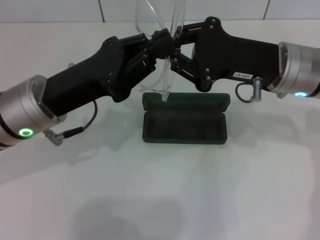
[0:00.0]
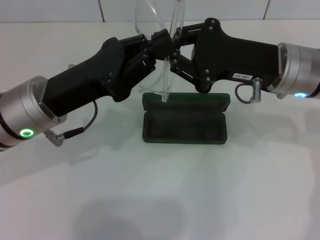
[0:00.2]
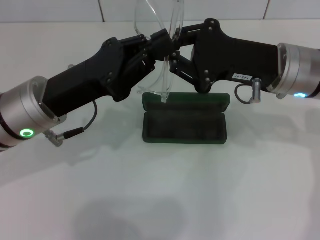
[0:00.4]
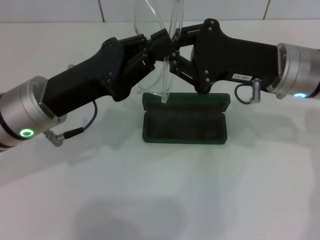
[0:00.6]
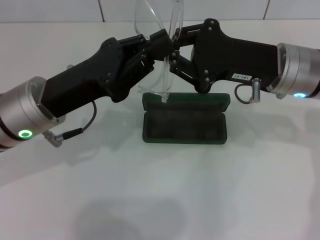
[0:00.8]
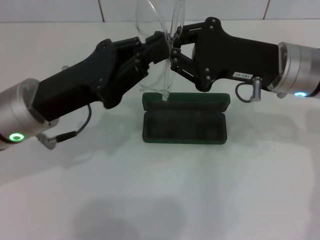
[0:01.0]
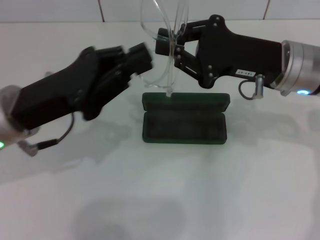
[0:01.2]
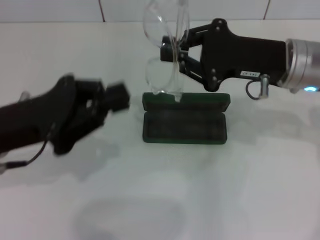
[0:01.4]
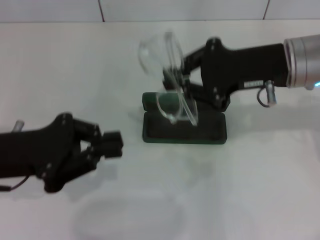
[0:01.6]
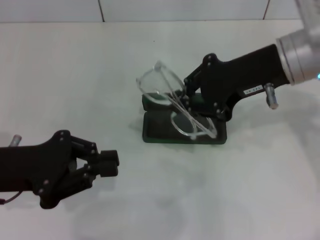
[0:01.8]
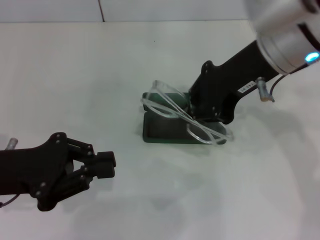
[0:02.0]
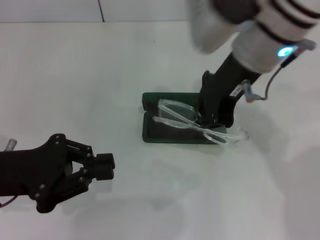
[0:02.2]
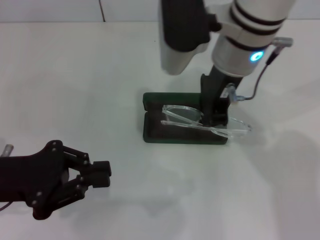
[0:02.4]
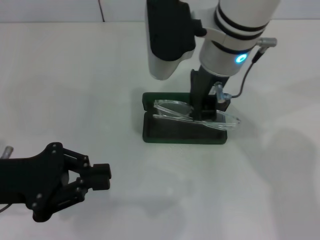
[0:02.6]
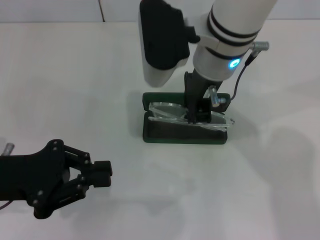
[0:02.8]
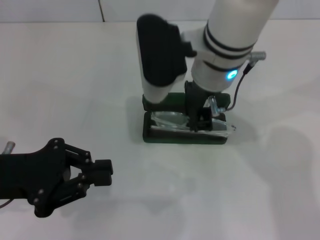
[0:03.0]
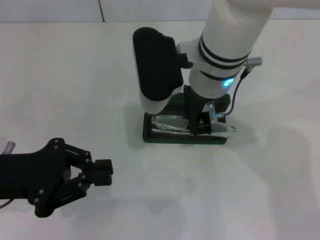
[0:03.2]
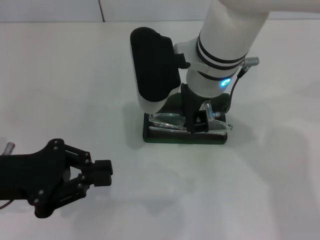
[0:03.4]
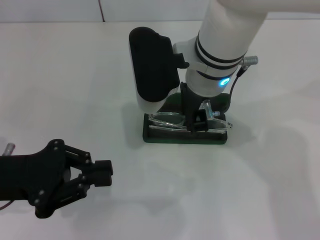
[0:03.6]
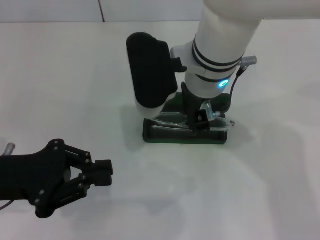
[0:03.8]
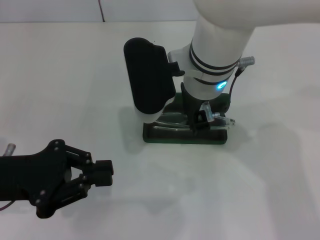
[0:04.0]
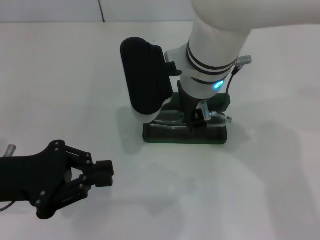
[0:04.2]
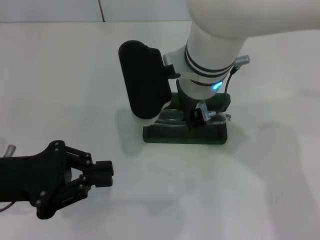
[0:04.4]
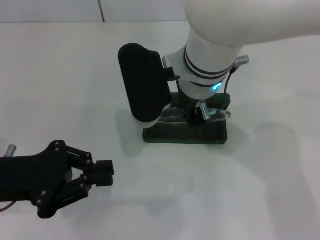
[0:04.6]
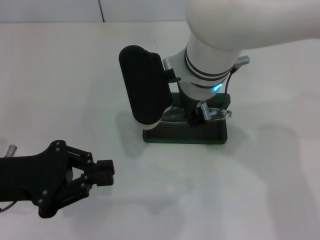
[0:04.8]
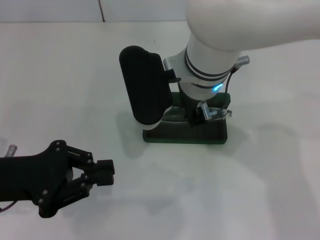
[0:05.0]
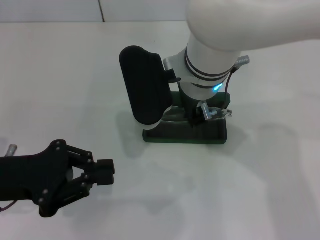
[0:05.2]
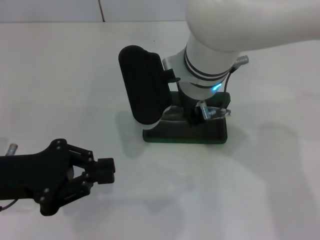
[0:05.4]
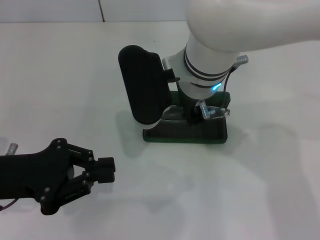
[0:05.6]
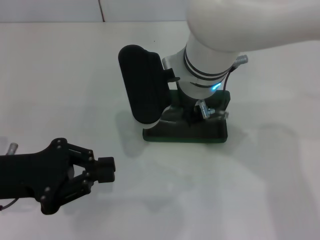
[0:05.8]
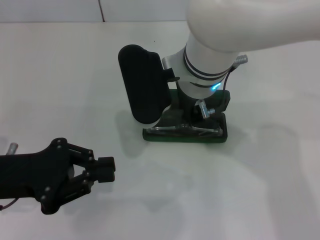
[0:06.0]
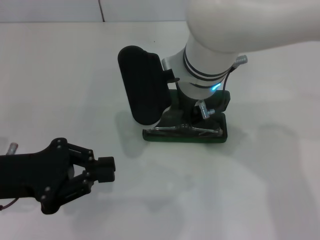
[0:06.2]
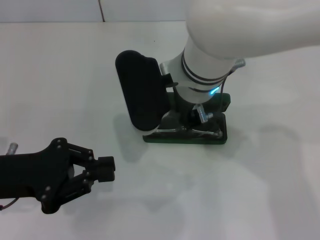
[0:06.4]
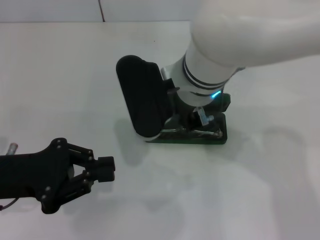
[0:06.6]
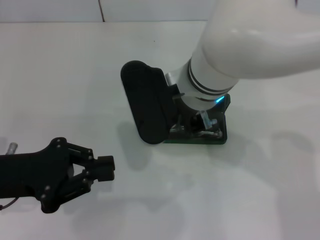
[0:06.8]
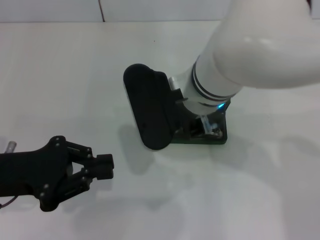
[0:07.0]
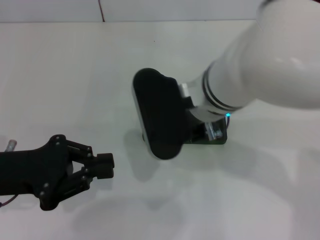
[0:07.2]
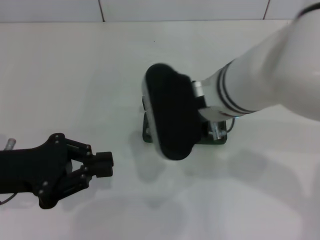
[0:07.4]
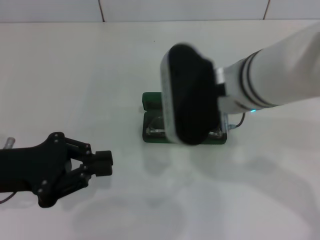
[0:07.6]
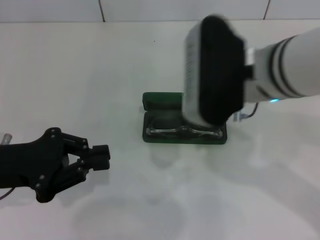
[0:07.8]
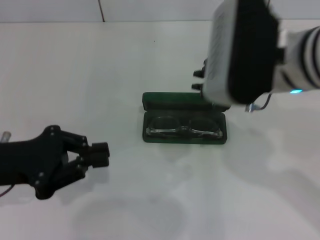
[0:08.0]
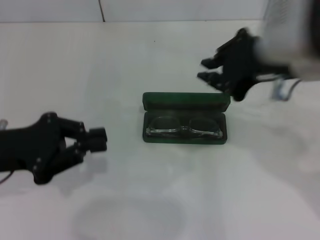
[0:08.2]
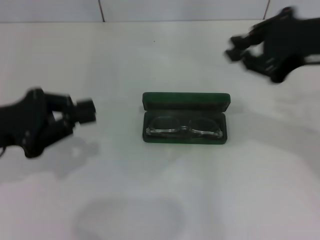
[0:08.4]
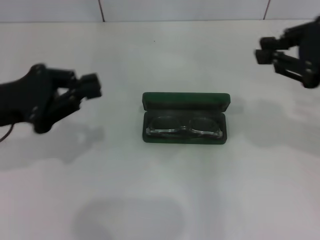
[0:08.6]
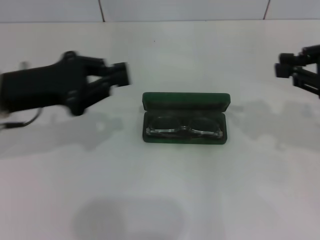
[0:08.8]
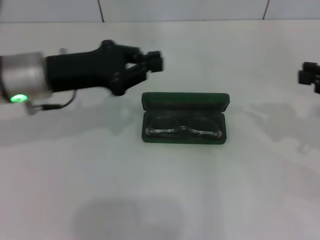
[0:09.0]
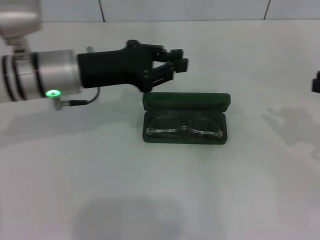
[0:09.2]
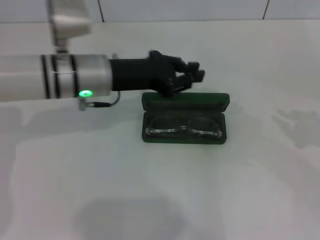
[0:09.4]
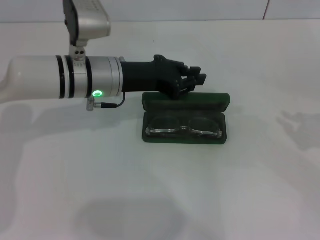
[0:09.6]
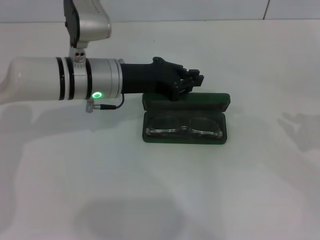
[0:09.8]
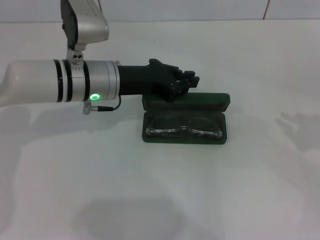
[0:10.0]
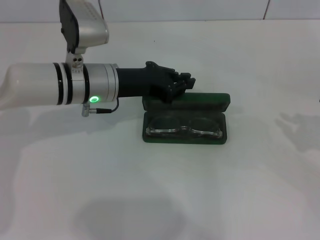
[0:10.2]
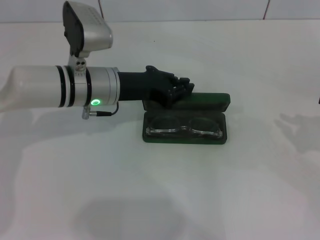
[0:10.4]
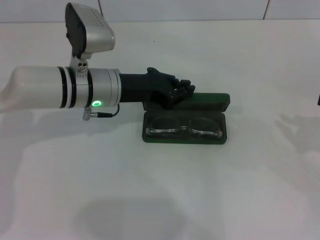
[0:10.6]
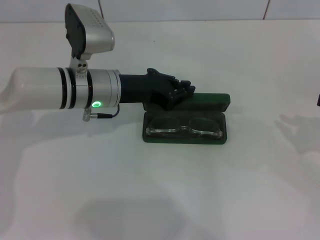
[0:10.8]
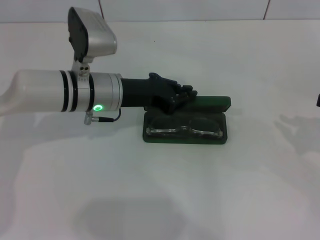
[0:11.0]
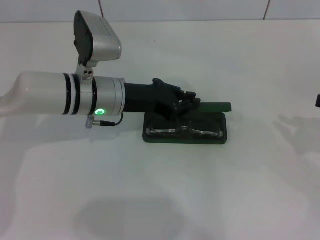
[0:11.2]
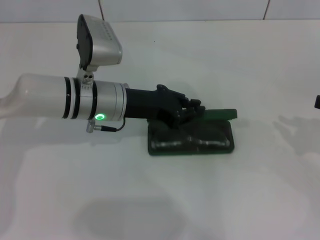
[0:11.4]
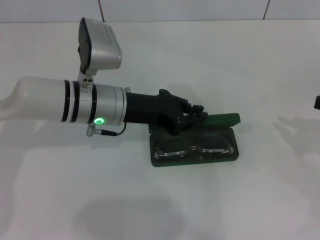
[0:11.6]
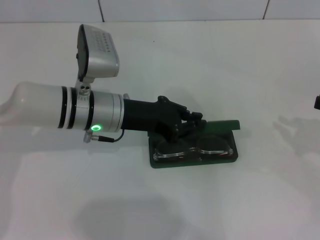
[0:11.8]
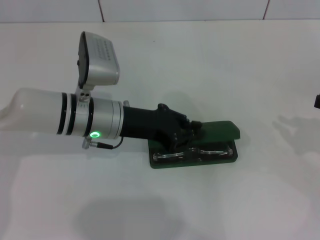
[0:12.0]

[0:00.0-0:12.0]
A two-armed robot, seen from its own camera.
Step, 0:00.0 to 0:05.8: Put the glasses into the case with your right hand.
0:00.0 to 0:01.6: The left gripper travels to the left by approximately 5 cm.
0:01.6 to 0:03.0: The right gripper moves to the left, approximately 15 cm.
0:03.0 to 0:04.4: The grippers move only a little.
0:04.4 to 0:06.0: The two grippers keep their place.
0:06.0 to 0:07.6: The right gripper moves to the right and backward, approximately 10 cm.
0:07.6 to 0:09.0: The right gripper shifts some 25 cm to the right, while the left gripper is displaced forward and to the right by roughly 15 cm.
0:09.0 to 0:10.4: The left gripper heads to the right and downward, covering some 10 cm; the right gripper is displaced downward by roughly 5 cm.
0:10.4 to 0:12.0: The grippers stay close to where they were, moving slightly.

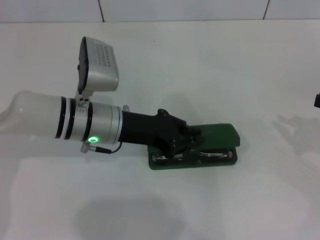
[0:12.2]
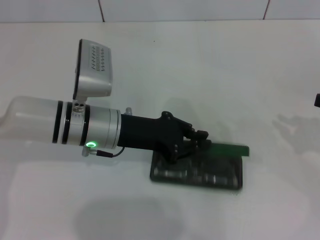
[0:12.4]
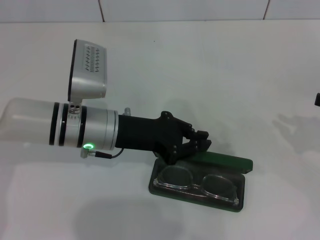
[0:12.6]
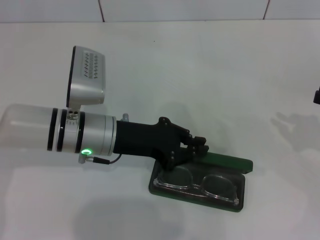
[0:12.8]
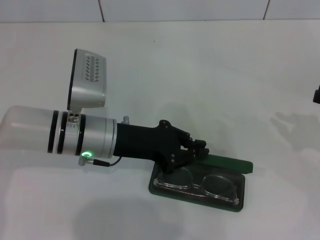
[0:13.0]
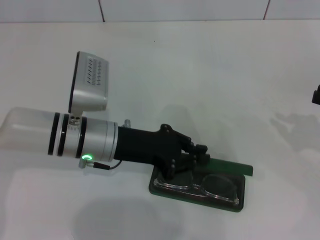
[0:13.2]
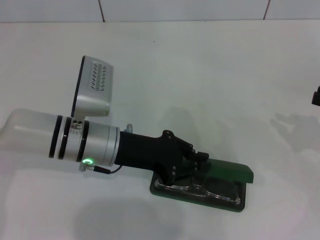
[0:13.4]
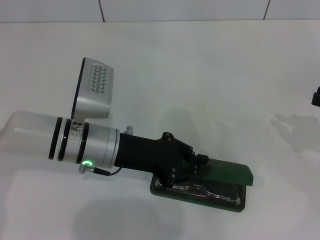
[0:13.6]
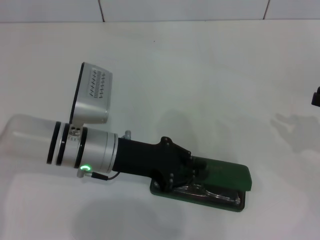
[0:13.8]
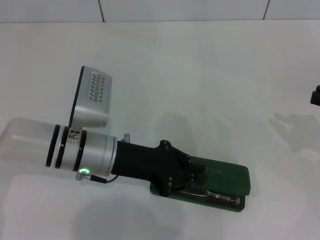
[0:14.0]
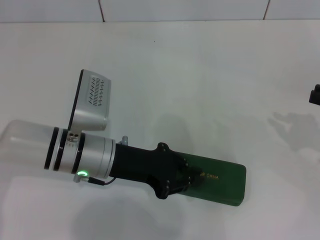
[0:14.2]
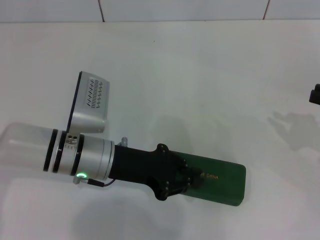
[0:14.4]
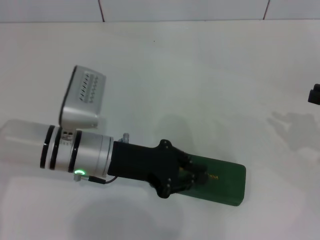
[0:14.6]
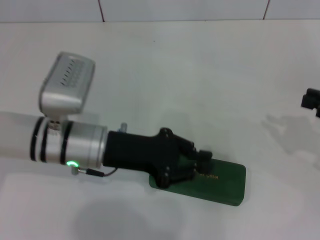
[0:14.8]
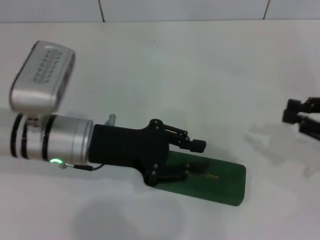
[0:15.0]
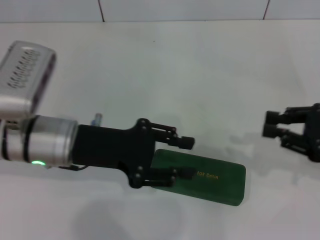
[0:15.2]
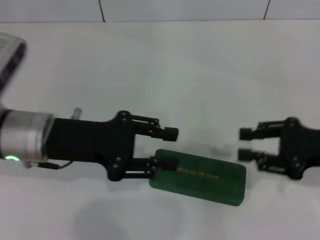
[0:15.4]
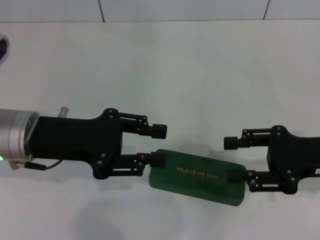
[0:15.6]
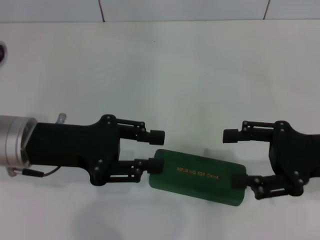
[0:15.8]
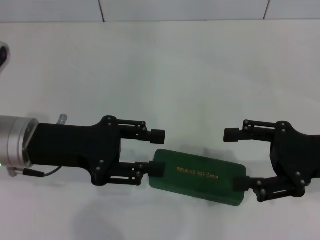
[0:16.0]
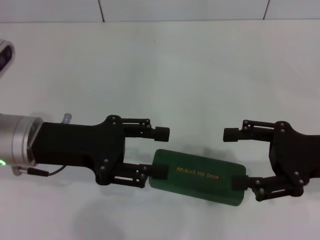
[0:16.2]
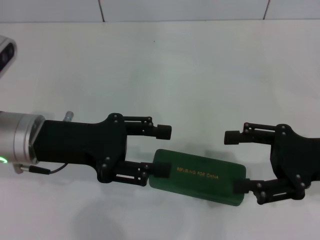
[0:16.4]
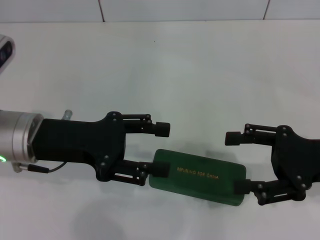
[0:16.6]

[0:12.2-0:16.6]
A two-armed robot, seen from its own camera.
Step, 0:12.2 to 0:14.2: Close the glasses case with your left hand.
0:12.2 to 0:13.6: The grippers move only a little.
0:13.6 to 0:15.2: The left gripper moves roughly 5 cm, and opens up. Meanwhile the right gripper heads to the left, covering about 5 cm.
0:15.2 to 0:16.6: The right gripper changes place by about 5 cm, and opens up. Meanwhile the left gripper opens its fingers.

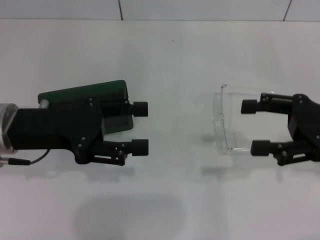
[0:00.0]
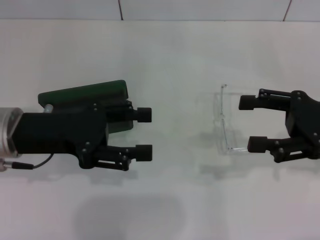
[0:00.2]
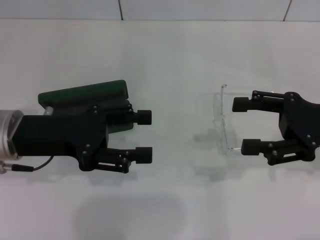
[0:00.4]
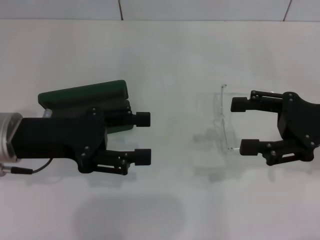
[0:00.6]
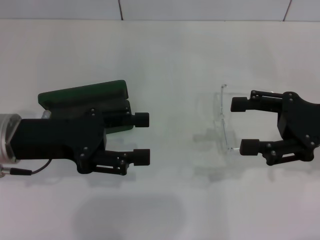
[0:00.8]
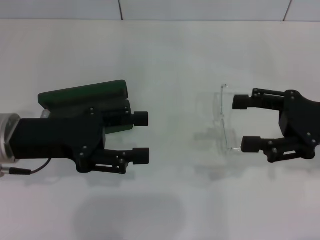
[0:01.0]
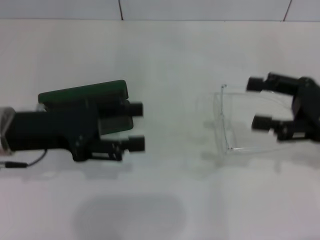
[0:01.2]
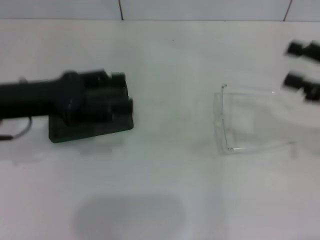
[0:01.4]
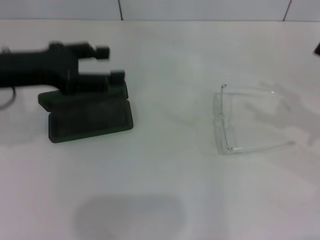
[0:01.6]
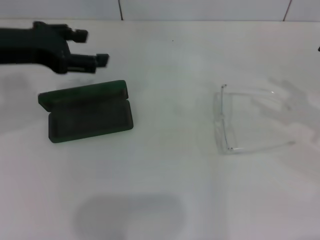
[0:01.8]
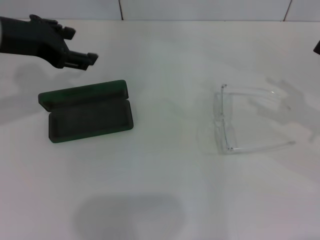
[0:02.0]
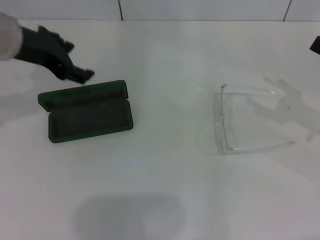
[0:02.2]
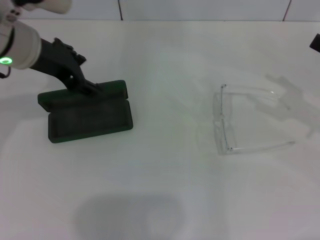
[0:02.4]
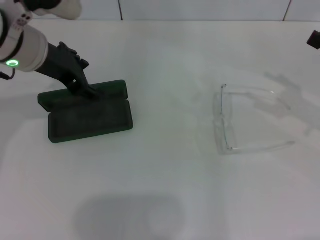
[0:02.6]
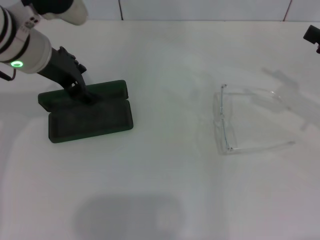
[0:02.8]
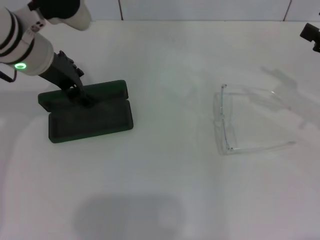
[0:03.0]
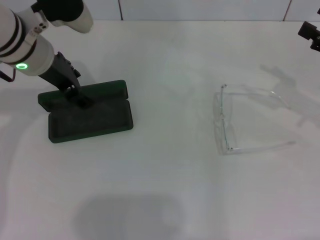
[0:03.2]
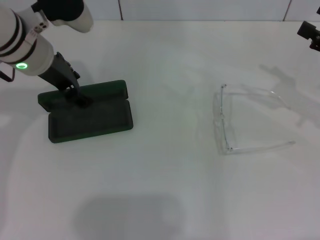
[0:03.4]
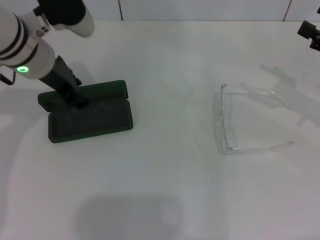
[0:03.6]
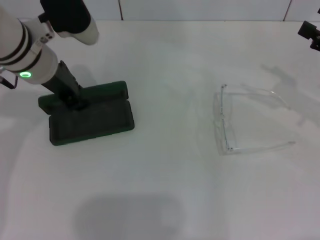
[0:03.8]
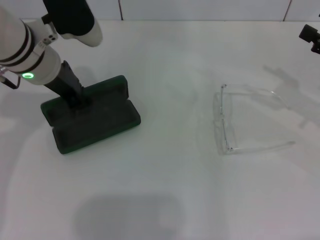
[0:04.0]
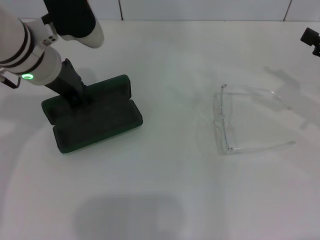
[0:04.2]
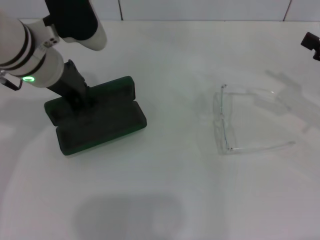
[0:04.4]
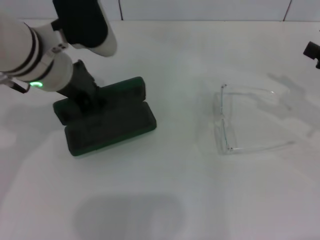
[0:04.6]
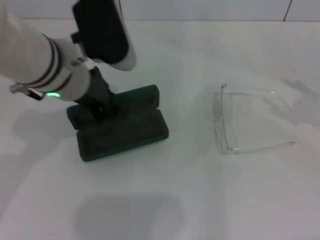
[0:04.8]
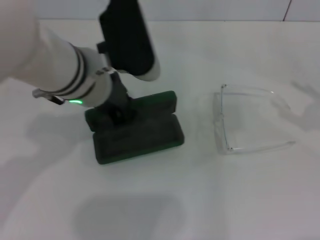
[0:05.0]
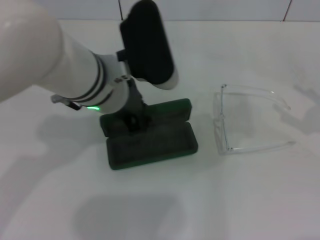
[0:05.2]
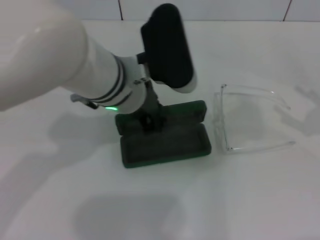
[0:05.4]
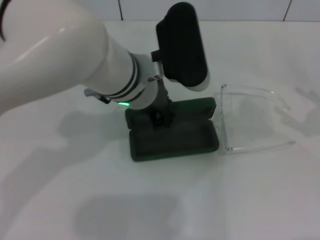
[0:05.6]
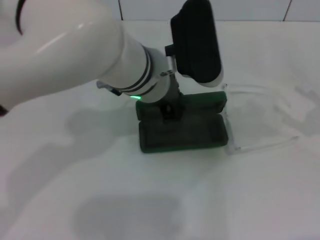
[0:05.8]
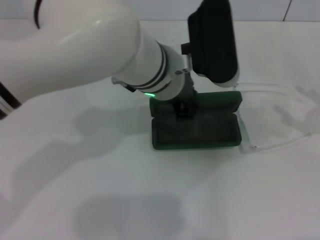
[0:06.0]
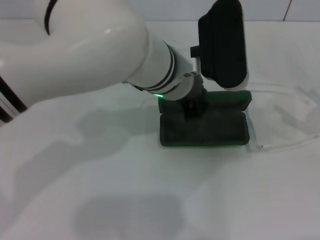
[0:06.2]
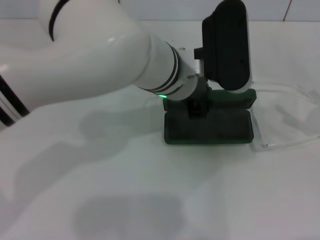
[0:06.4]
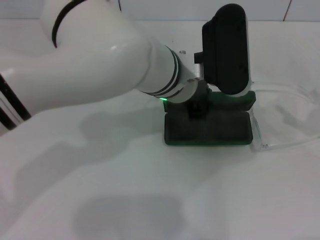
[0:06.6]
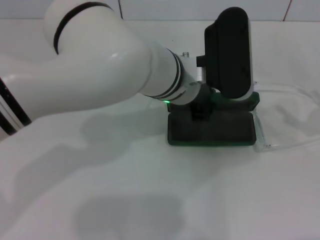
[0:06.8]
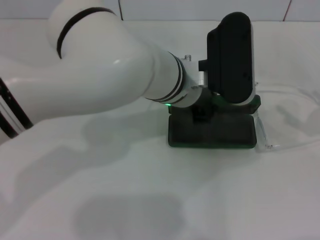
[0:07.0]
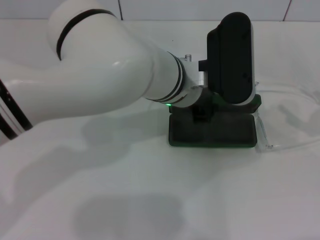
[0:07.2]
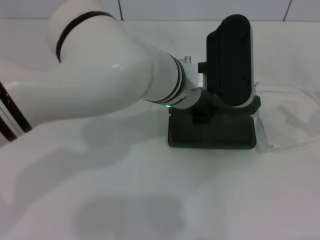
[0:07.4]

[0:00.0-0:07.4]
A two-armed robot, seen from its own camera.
Step, 0:00.0 to 0:03.6: Grab the glasses case with your left hand.
0:00.0 to 0:01.4: The grippers make only small movements.
0:01.4 to 0:03.0: The left gripper moves forward and to the right, roughly 10 cm.
0:03.0 to 0:04.4: The left gripper closes.
0:04.4 to 0:06.0: The left gripper shifts about 15 cm to the right. Meanwhile the right gripper travels backward by roughly 5 cm.
